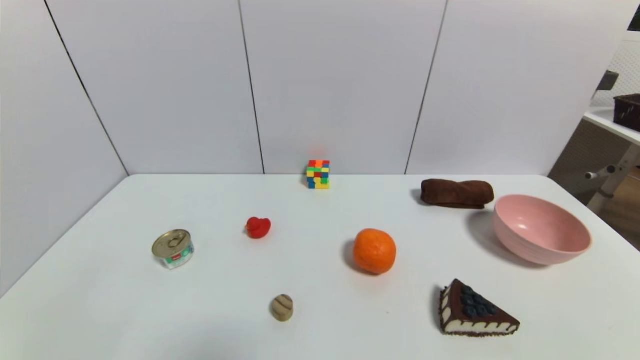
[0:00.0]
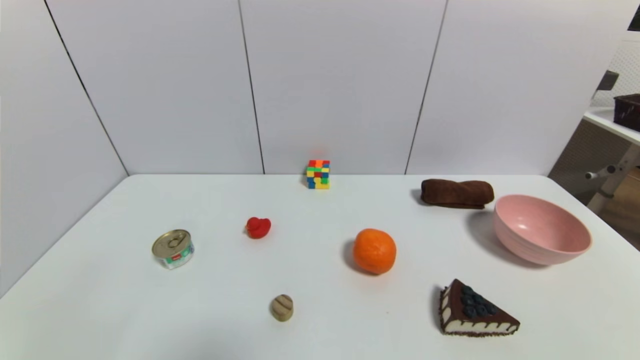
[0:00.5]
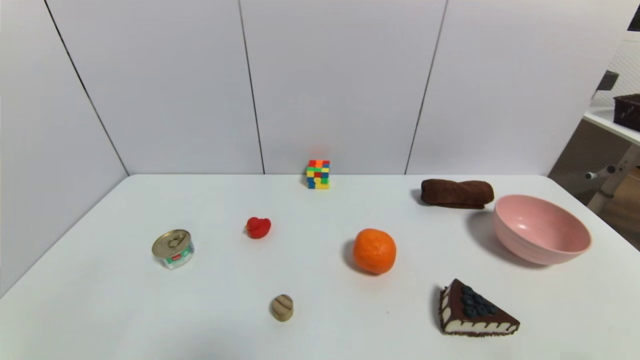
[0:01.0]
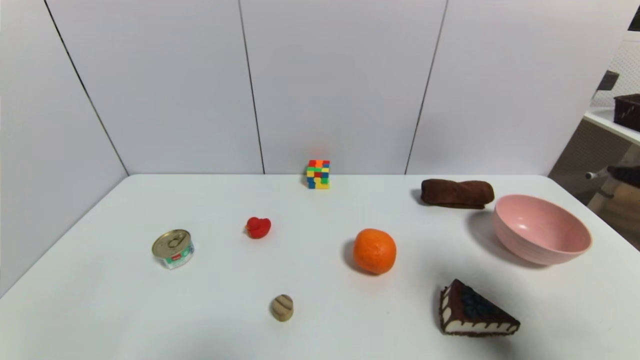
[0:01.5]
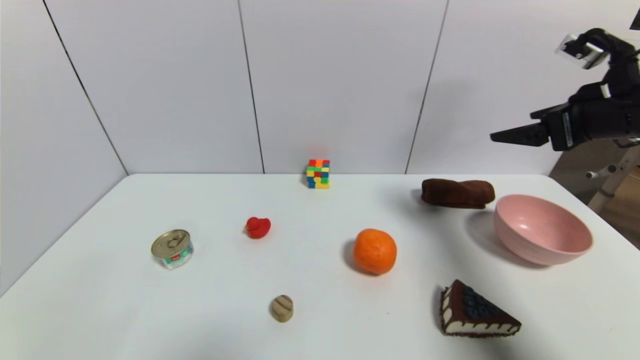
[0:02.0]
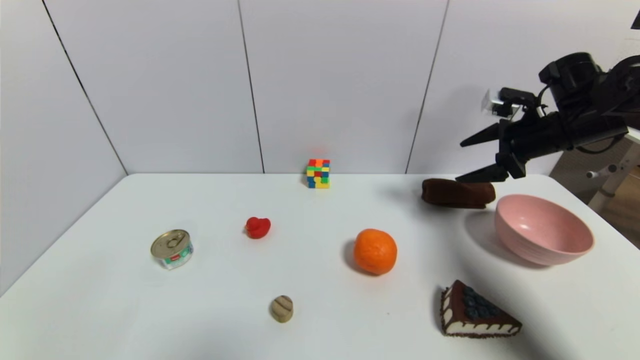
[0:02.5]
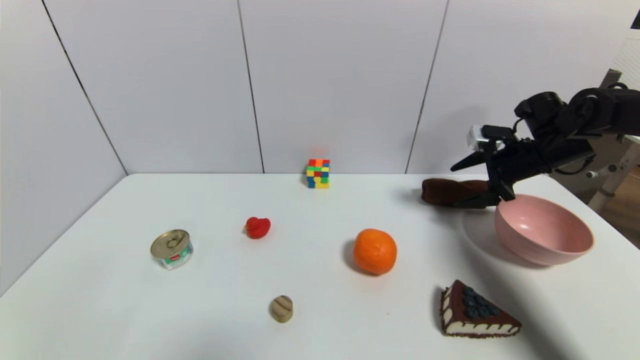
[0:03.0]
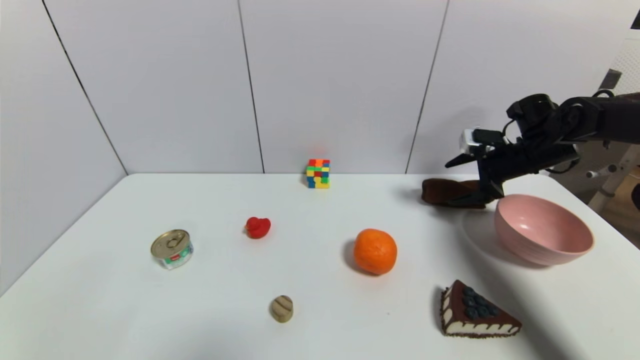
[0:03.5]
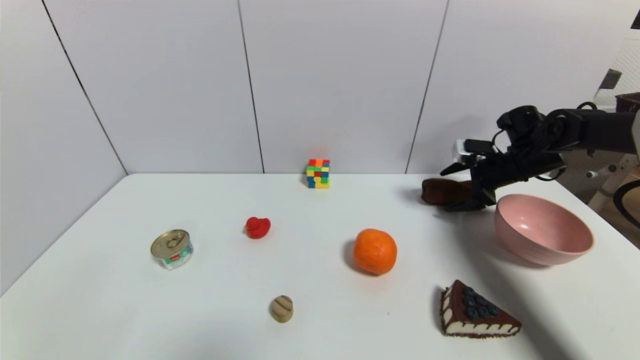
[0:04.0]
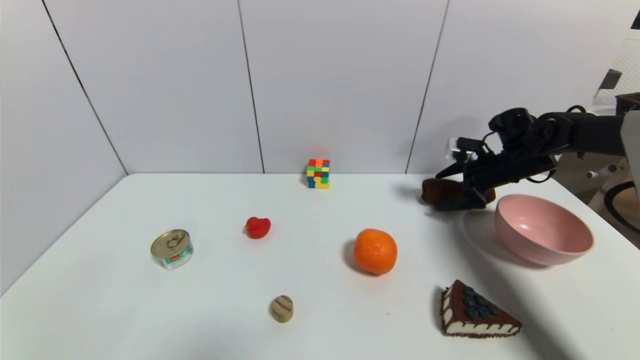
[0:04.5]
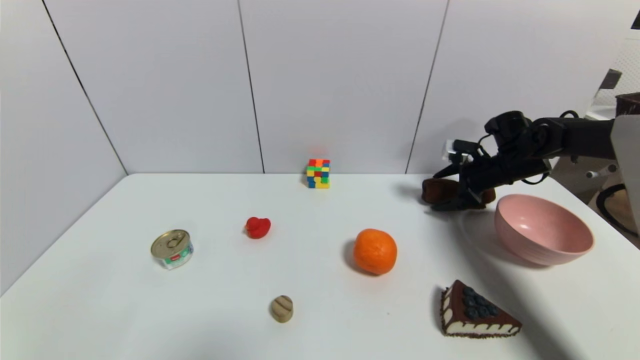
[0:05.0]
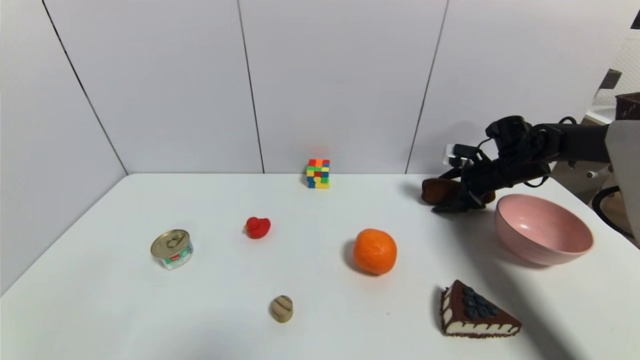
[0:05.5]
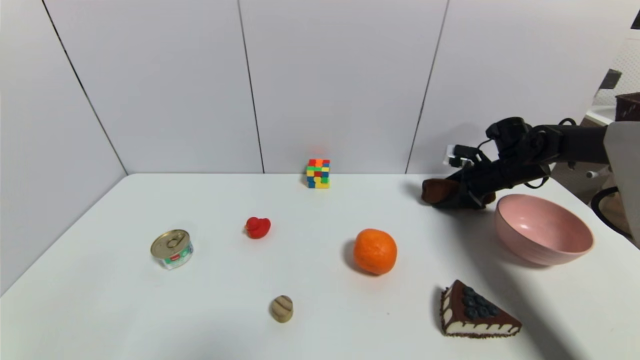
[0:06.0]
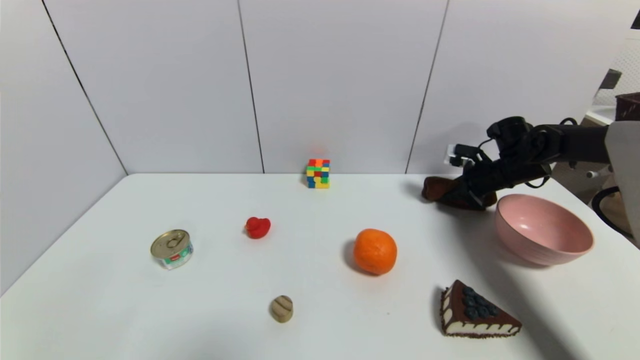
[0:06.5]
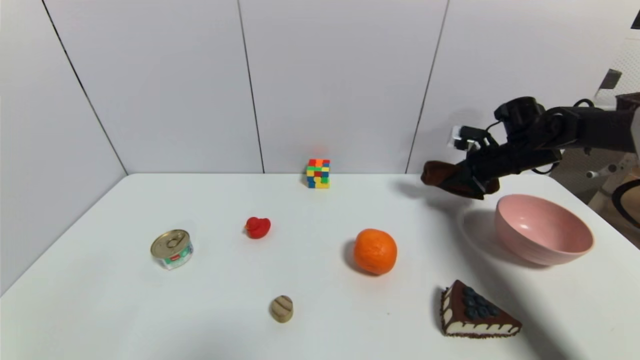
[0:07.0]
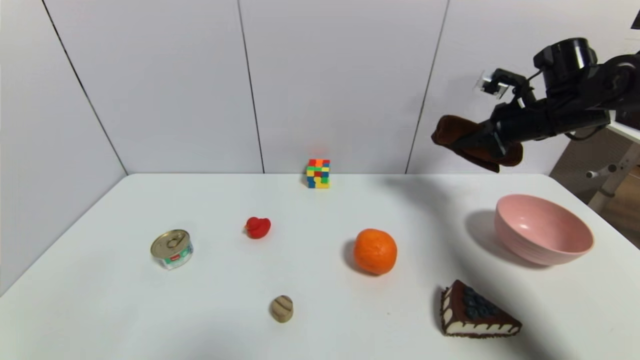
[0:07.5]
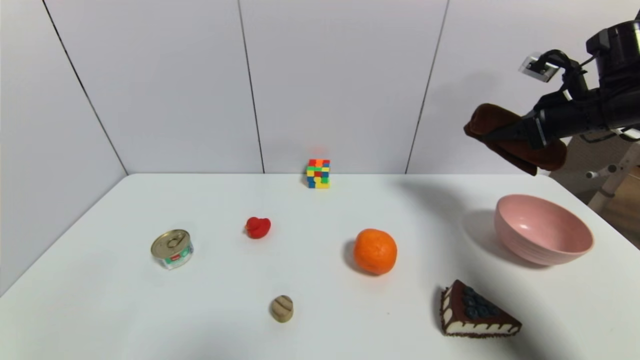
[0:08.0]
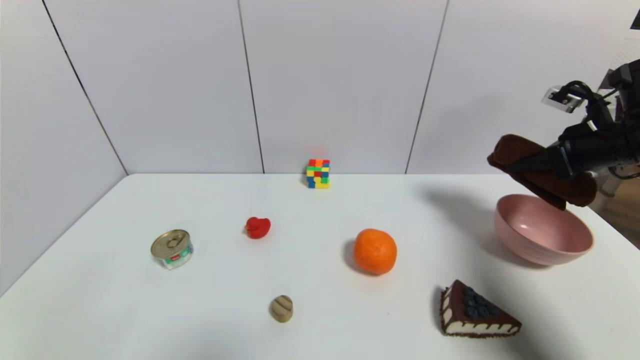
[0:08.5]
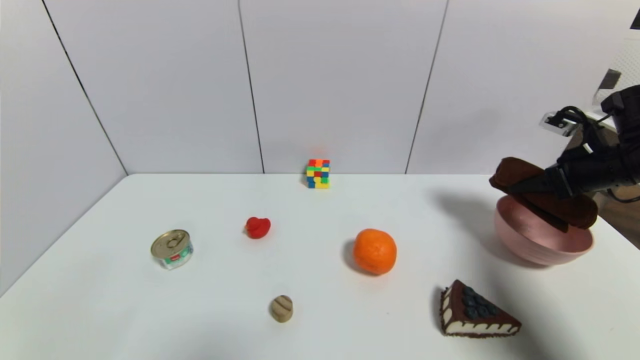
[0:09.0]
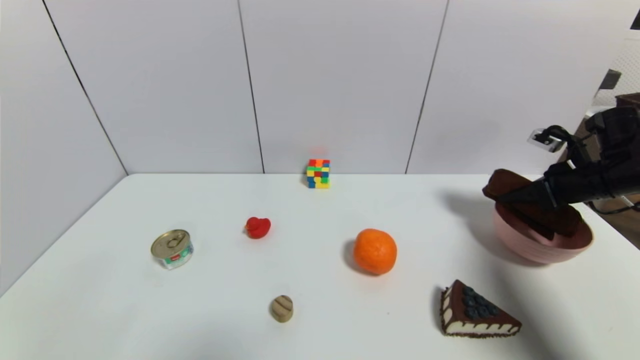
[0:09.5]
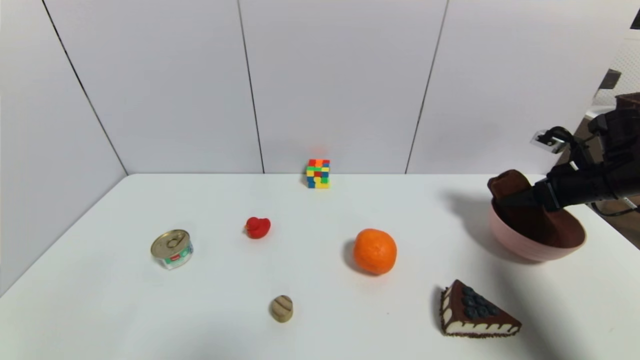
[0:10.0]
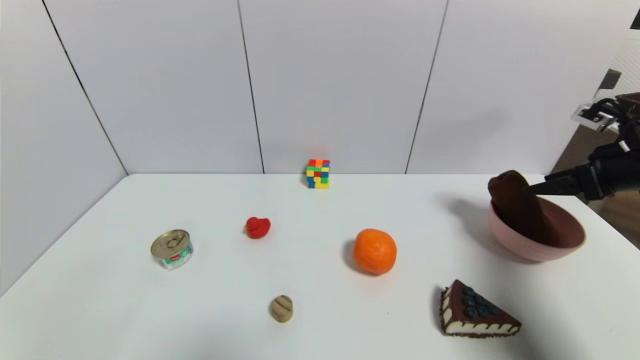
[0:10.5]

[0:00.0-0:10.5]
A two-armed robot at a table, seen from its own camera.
Task of the whole recording: use a gripper to pick the target object and place on the pink bowl.
Step, 0:00.0 to 0:06.5: Grasp the brown towel with the right gripper.
Step, 0:07.0 to 0:10.0: Place the brown towel on the pink bowl with the right gripper.
0:00.0 to 0:02.0: The right gripper shifts about 40 cm forward and upward.
0:02.0 to 0:04.0: The right gripper travels forward and downward by roughly 20 cm.
0:04.0 to 0:06.5: The right gripper closes up.
0:06.5 to 0:08.5: The right gripper heads backward and upward, covering roughly 15 cm.
0:08.5 to 0:10.5: The right gripper opens.

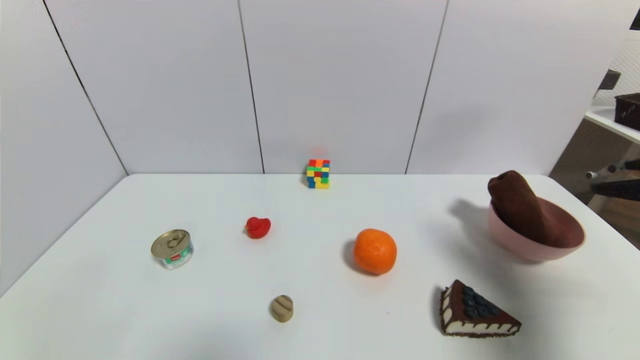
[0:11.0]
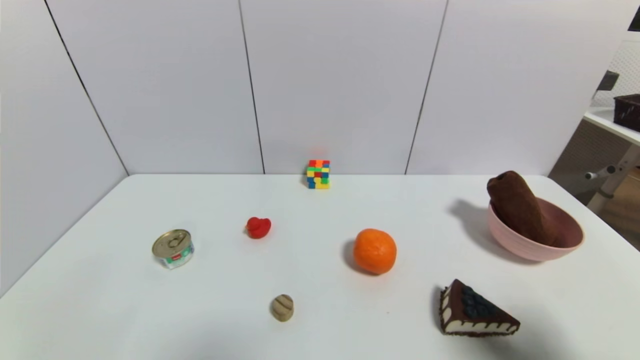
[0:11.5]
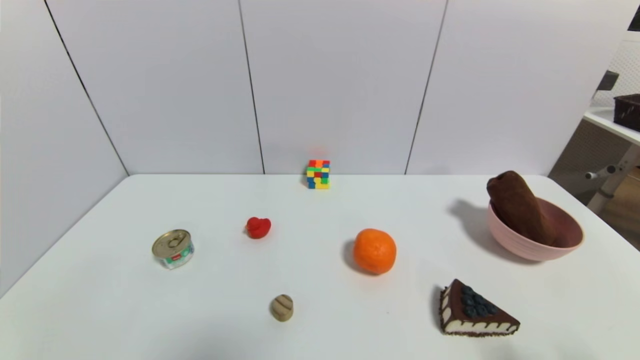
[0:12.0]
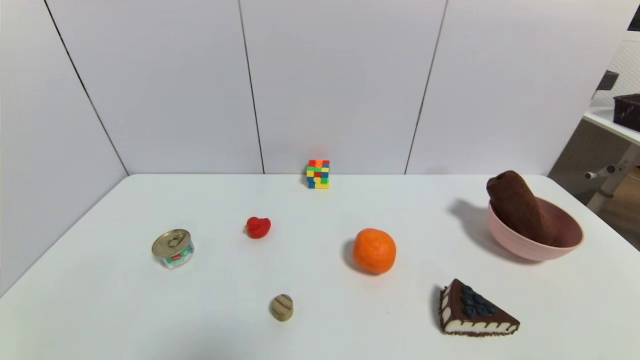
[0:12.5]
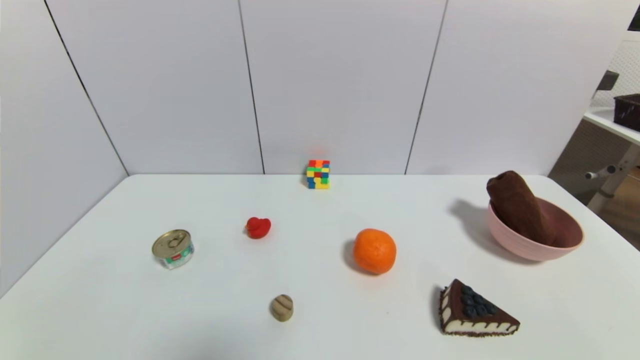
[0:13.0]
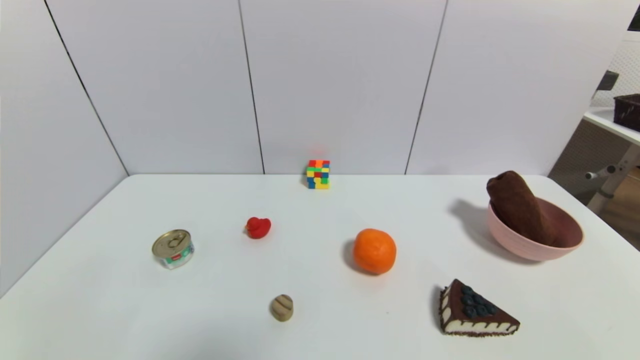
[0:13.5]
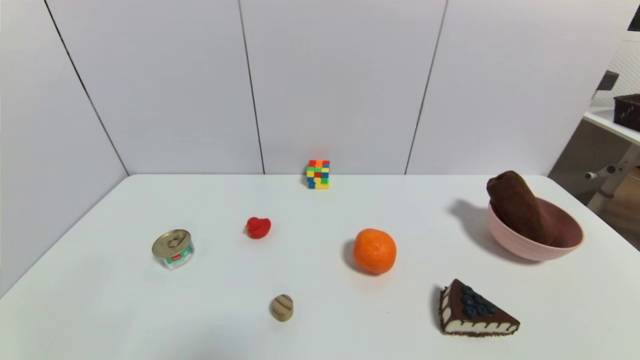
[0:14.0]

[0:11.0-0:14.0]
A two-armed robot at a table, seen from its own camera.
Task of the whole recording: use a gripper to pick the target object and place on the pink bowl.
0:11.0 to 0:12.5: The right gripper travels backward and downward by some 25 cm.

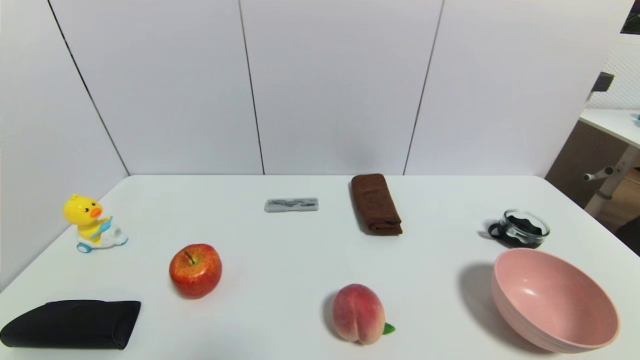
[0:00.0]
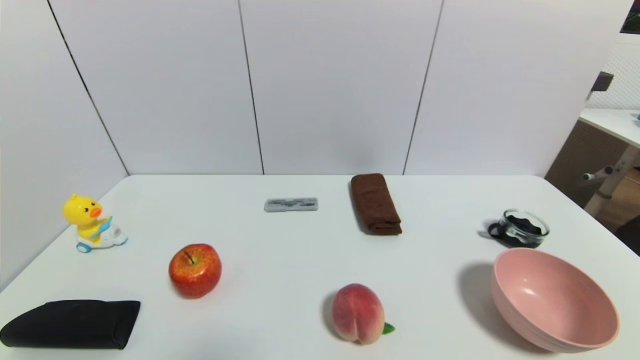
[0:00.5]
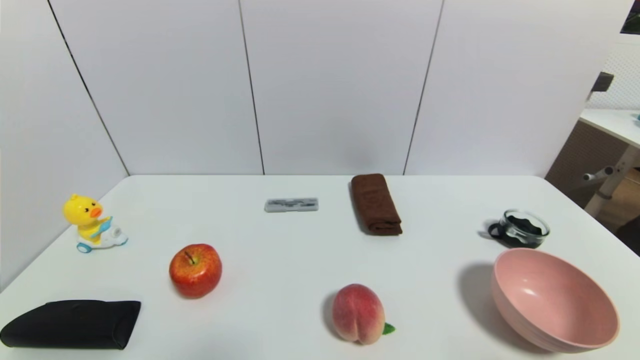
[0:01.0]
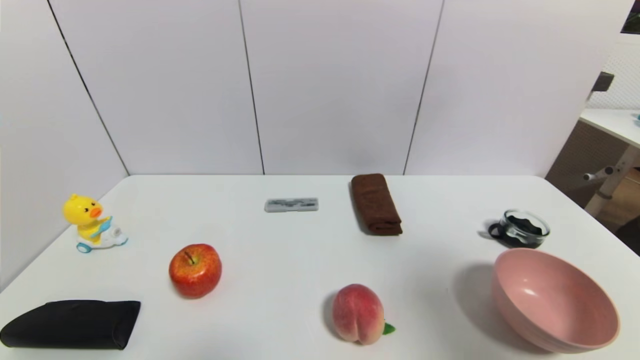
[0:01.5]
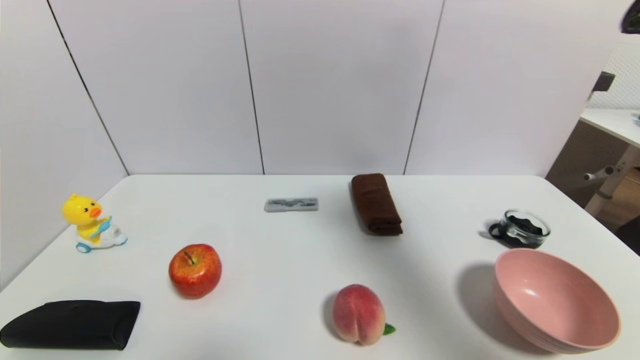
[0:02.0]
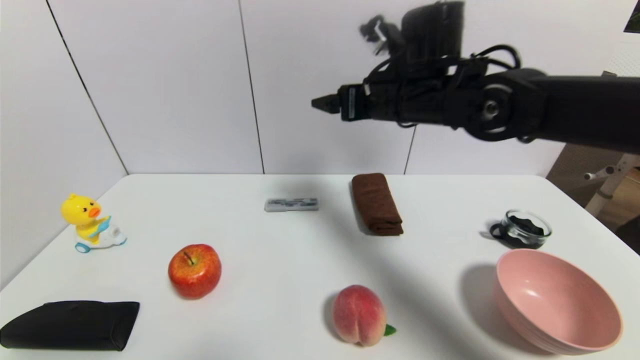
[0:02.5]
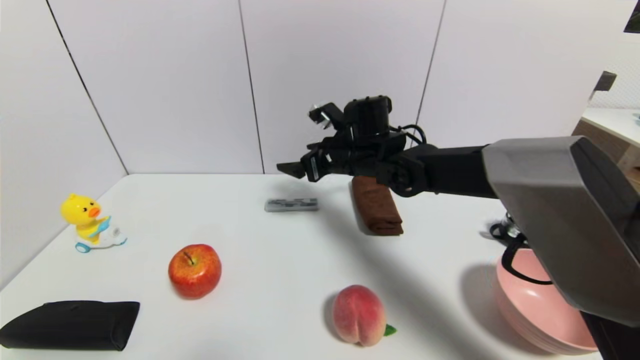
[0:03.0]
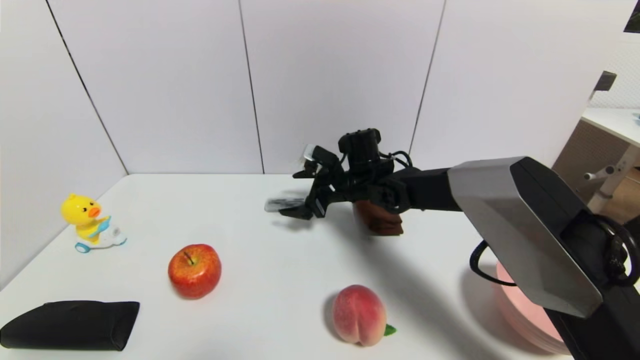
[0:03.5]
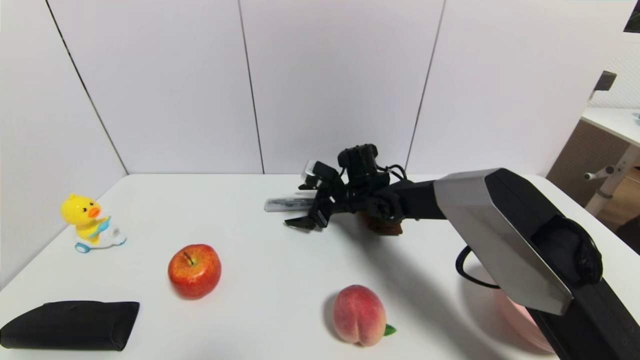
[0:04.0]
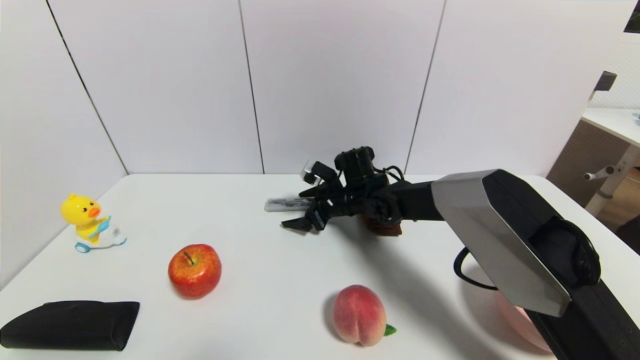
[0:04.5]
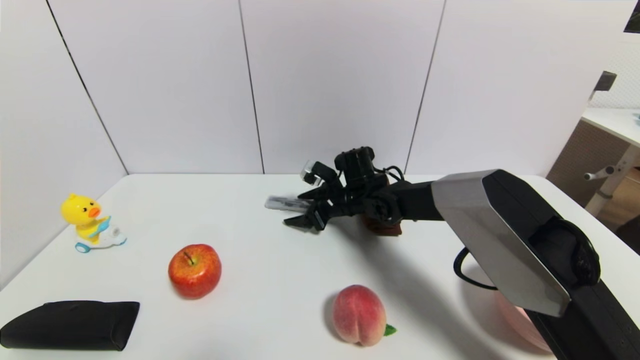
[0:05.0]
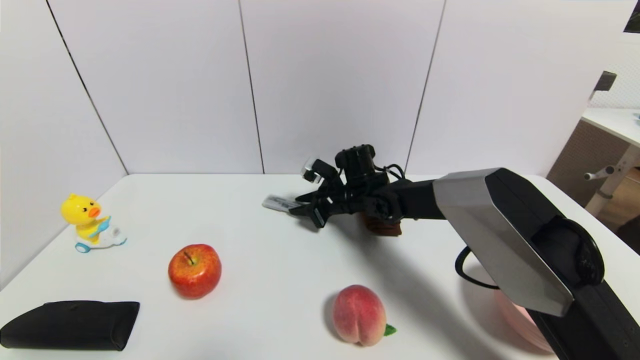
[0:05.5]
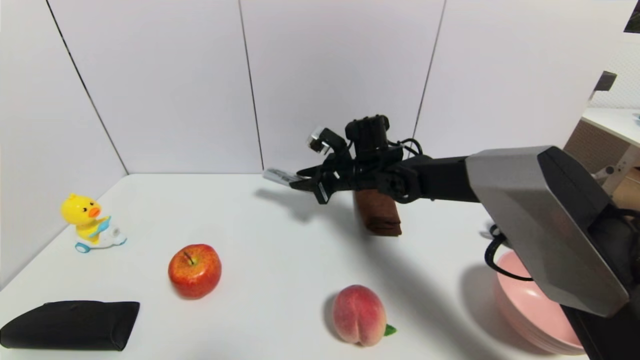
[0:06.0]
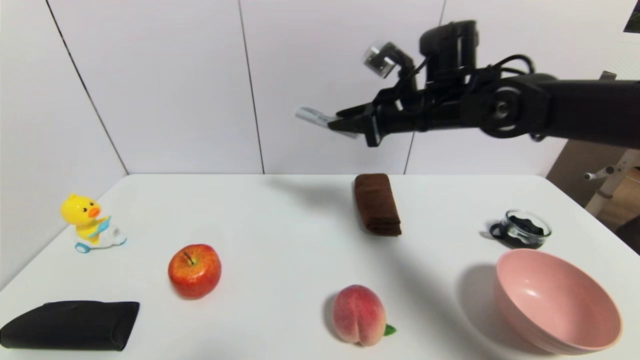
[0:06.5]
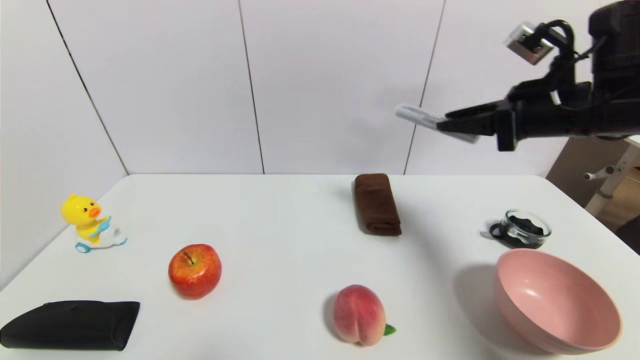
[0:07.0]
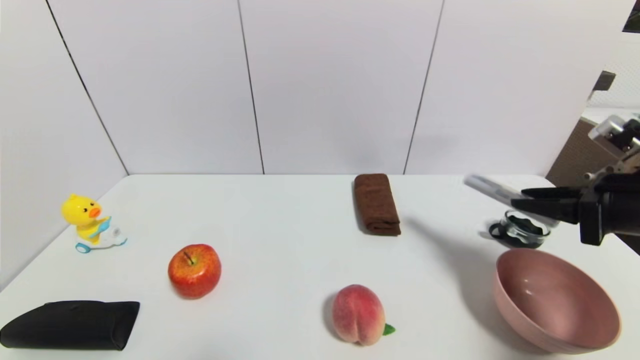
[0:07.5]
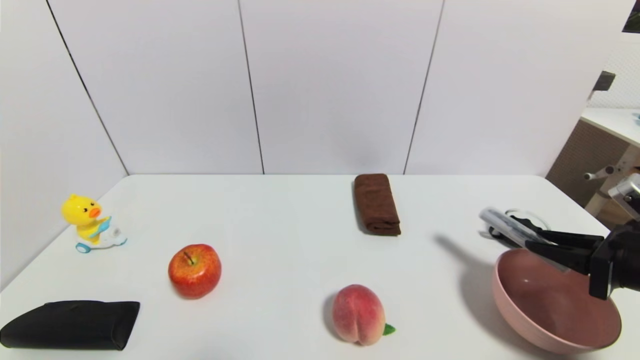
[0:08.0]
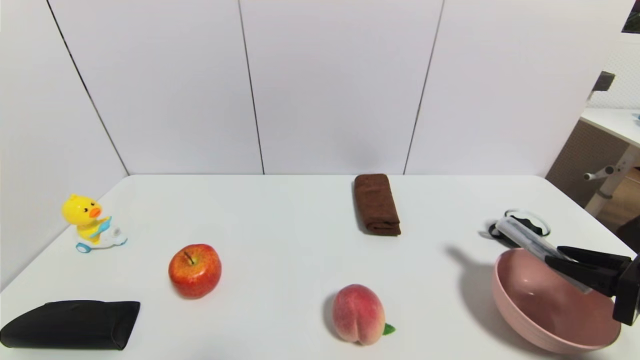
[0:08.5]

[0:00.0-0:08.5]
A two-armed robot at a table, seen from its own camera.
Task of the whole recording: use a gripper to pick the target object and place on the pink bowl.
Step, 0:00.0 to 0:05.0: Grasp the compasses with the right gripper.
0:00.0 to 0:02.0: The right gripper is displaced upward and forward by approximately 40 cm.
0:02.0 to 0:04.0: The right gripper is displaced downward, forward and to the left by about 40 cm.
0:04.0 to 0:06.5: The right gripper heads upward and to the right, covering some 20 cm, and closes its fingers.
0:06.5 to 0:08.5: The right gripper travels backward, to the right and downward by some 35 cm.
